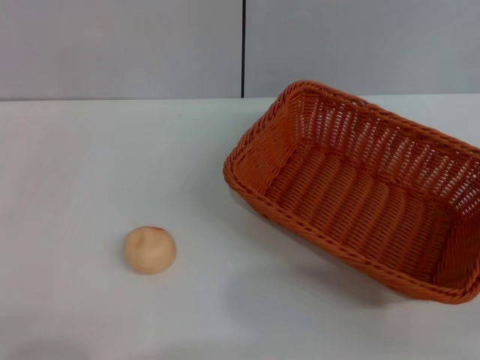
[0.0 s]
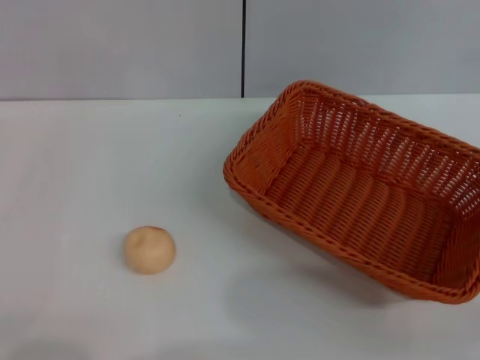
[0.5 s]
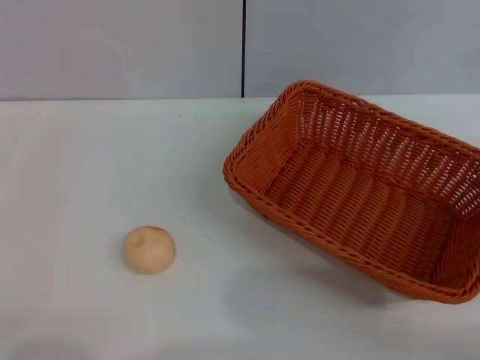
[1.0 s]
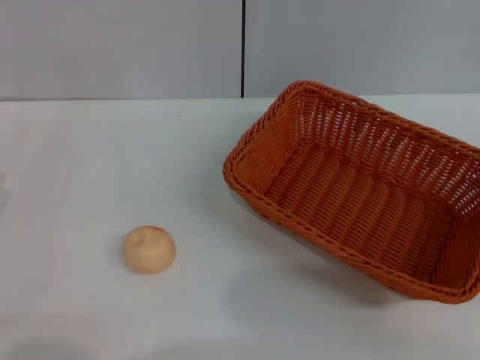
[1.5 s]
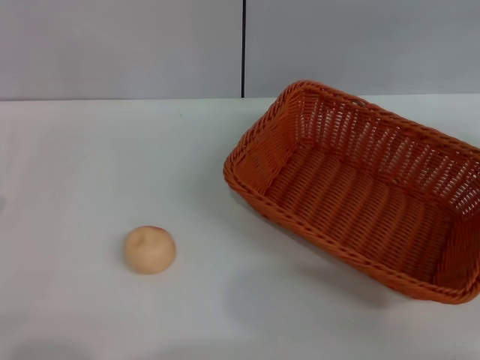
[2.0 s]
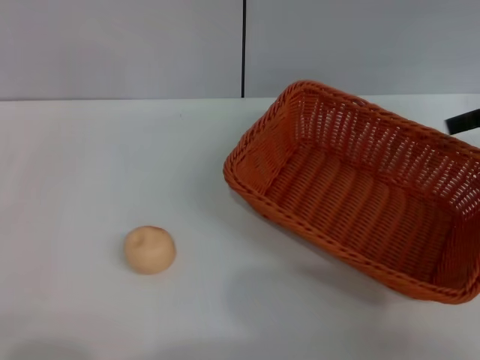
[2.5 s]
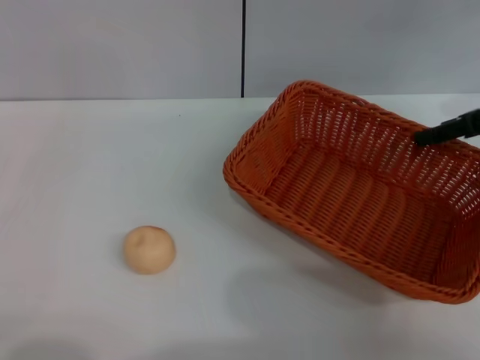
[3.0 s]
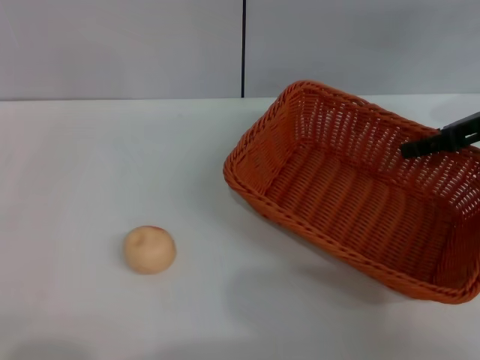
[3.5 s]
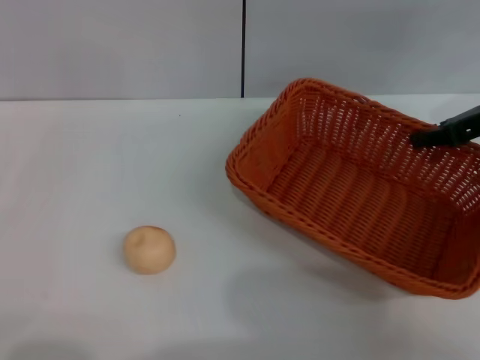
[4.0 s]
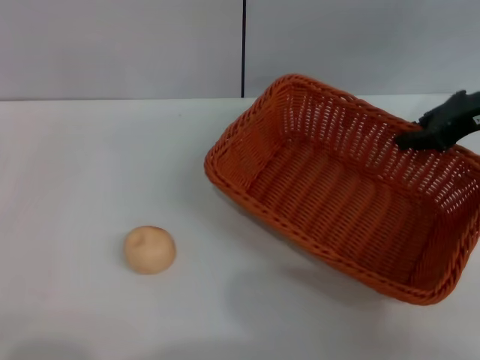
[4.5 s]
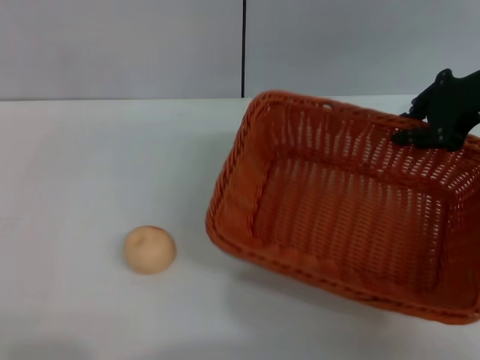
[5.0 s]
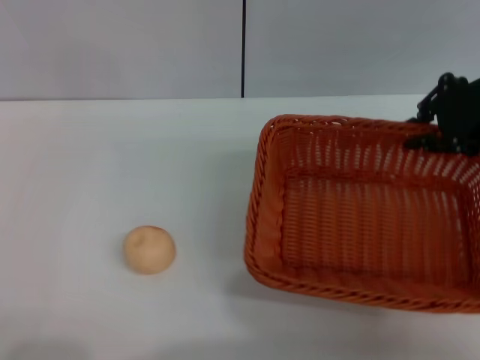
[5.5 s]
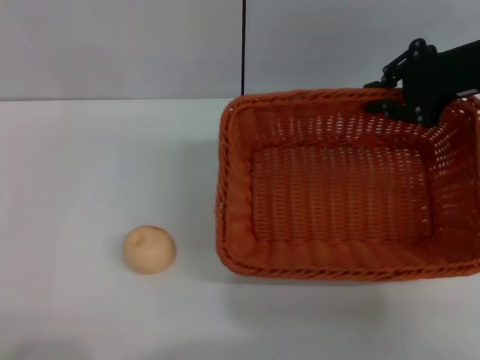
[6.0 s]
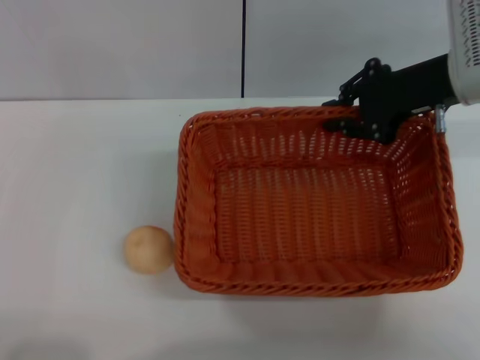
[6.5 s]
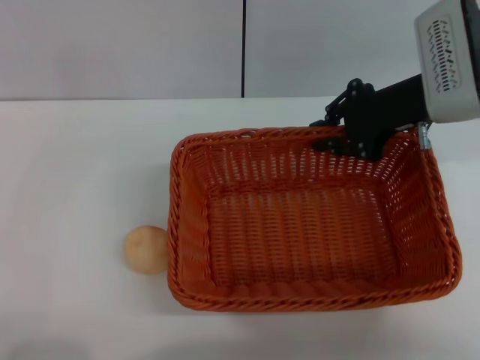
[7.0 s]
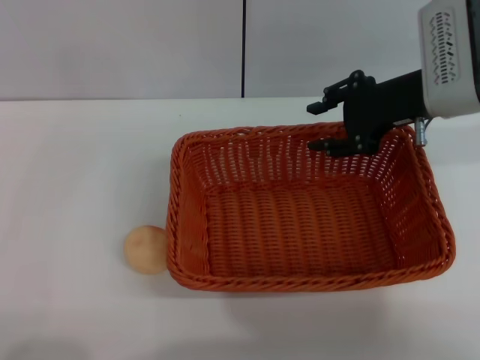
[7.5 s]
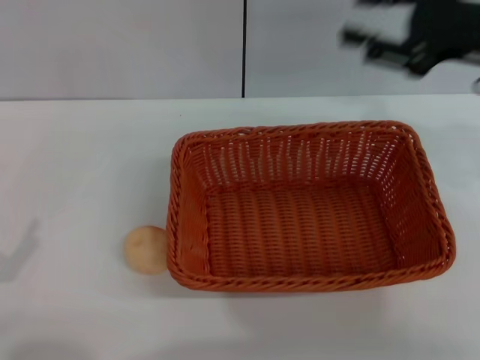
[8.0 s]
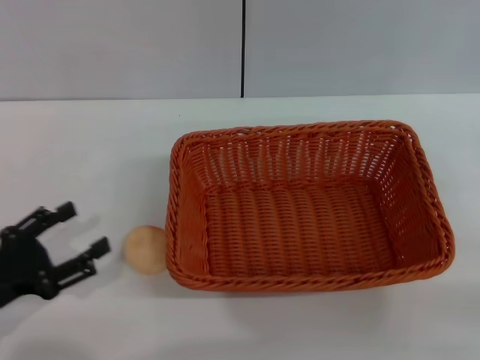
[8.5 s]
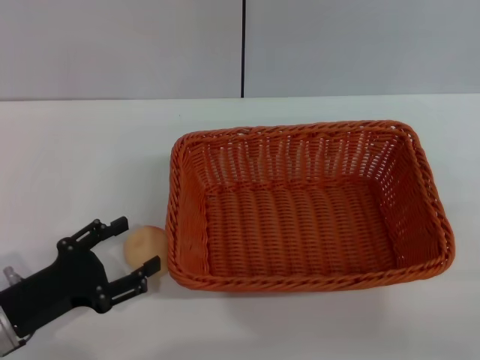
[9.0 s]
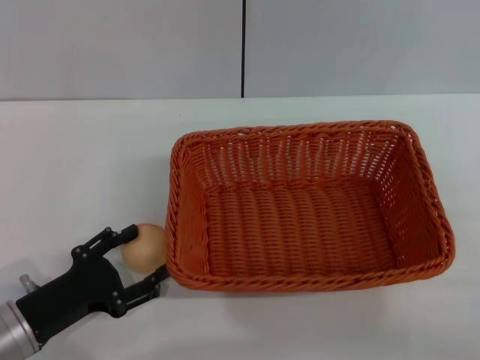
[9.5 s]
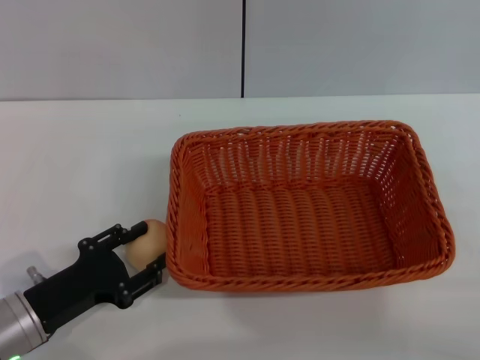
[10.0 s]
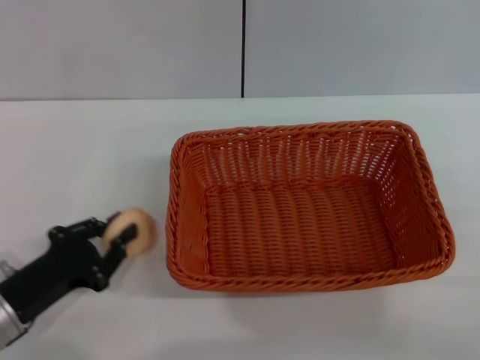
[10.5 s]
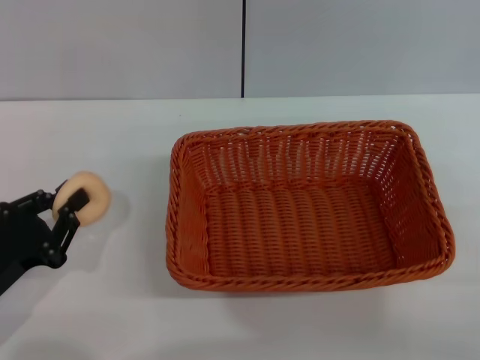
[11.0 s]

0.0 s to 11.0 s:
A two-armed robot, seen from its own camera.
Step, 0.0 to 7.5 s: Move the basket to the center of view with the right gripper.
2.0 to 3.5 s: The right gripper shifts about 15 cm to the left, downward and forward.
3.5 to 5.5 s: The right gripper moves some 5 cm, and closes up.
5.5 to 7.5 s: The right gripper goes roughly 5 cm to the left.
7.5 to 9.0 s: The right gripper moves backward and to the right, some 30 cm; the left gripper is displaced forward and to the right by some 10 cm.
9.0 to 11.0 s: The left gripper closes up.

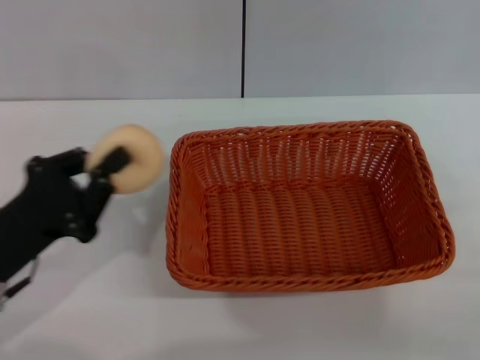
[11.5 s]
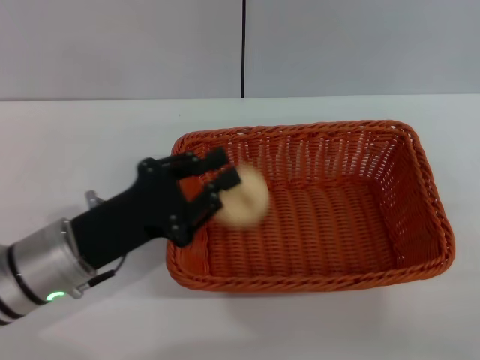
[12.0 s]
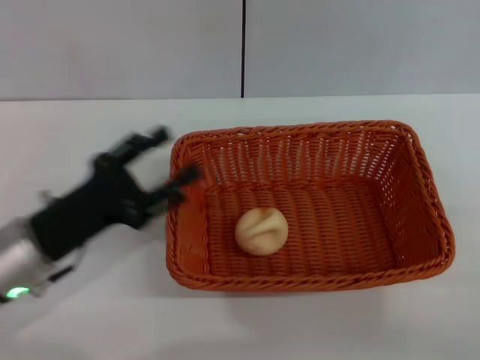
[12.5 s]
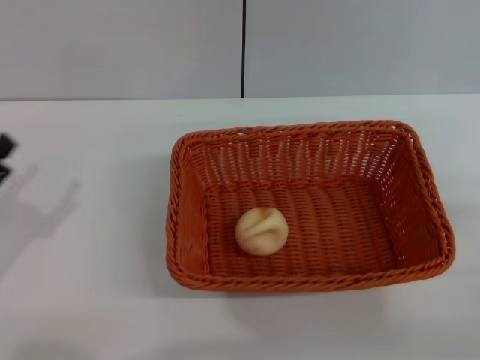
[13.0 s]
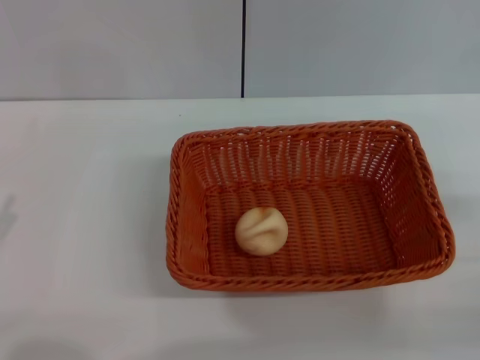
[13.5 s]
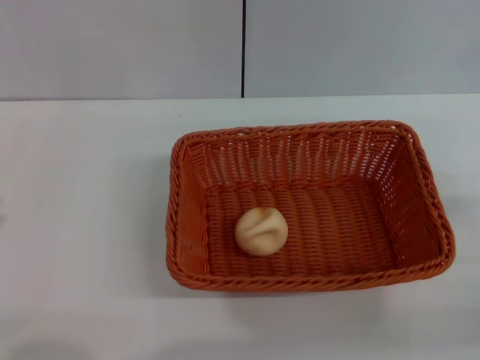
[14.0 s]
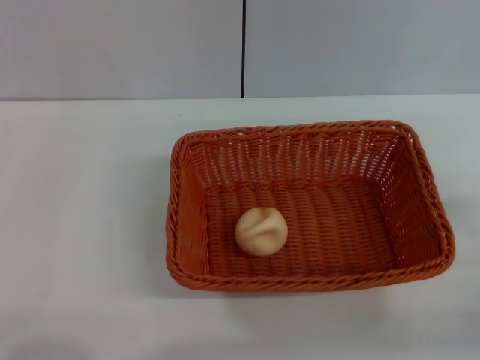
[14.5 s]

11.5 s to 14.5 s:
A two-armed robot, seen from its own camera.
Step, 11.5 to 12.5 s: Place the egg yolk pastry into the basket with the left gripper.
11.5 to 13.0 s: The left gripper moves to the left, about 5 cm, and opens its fingers.

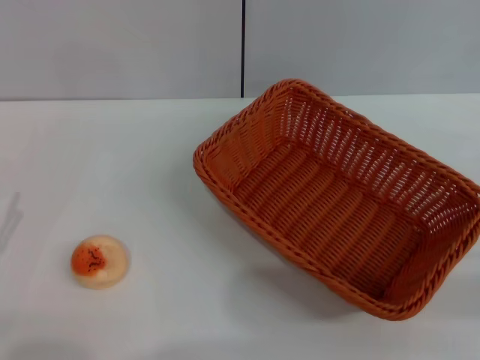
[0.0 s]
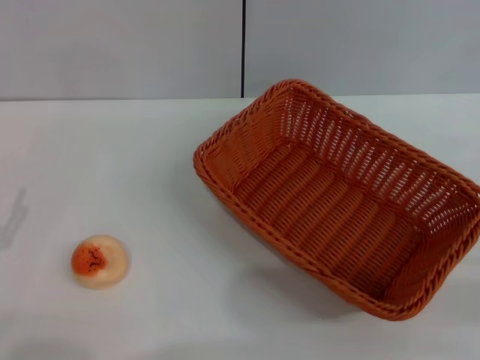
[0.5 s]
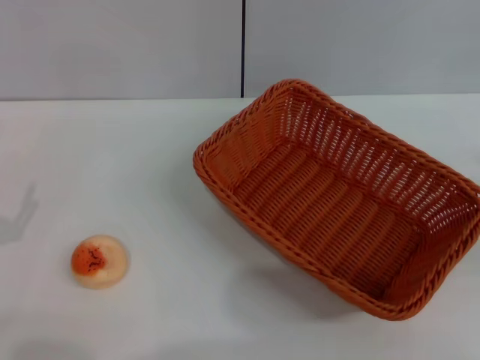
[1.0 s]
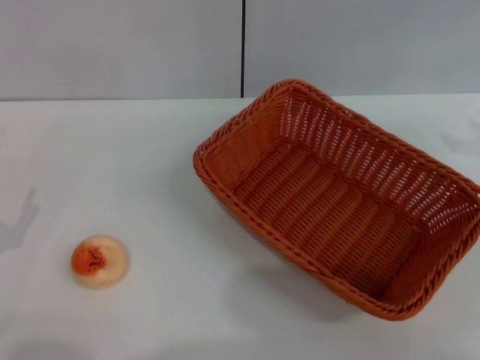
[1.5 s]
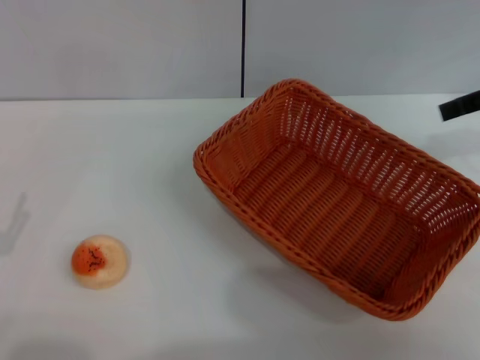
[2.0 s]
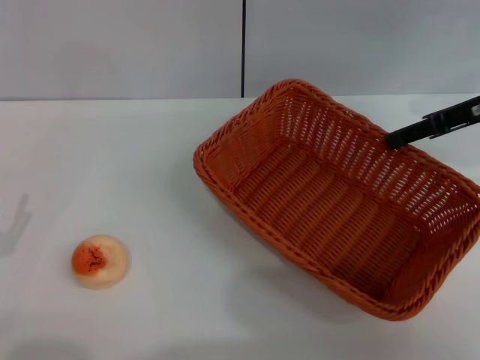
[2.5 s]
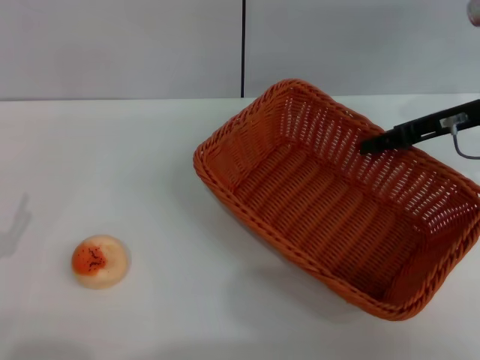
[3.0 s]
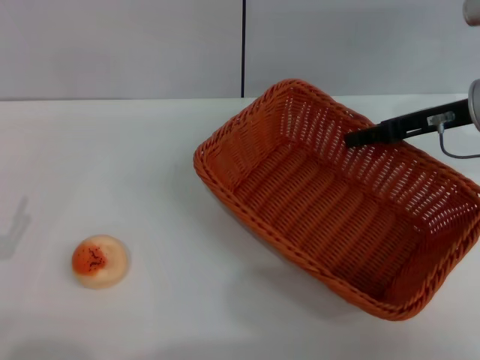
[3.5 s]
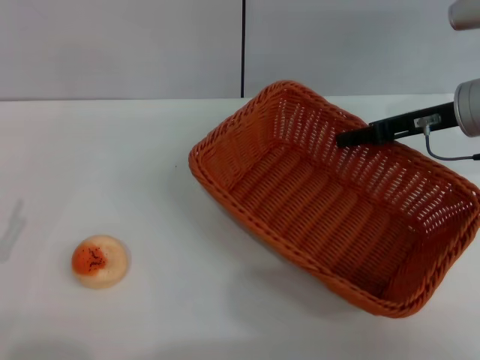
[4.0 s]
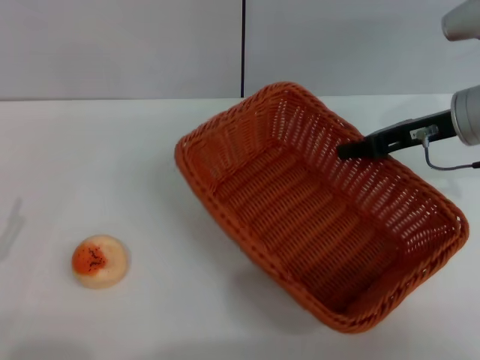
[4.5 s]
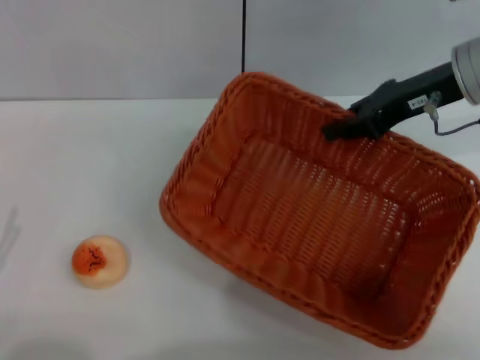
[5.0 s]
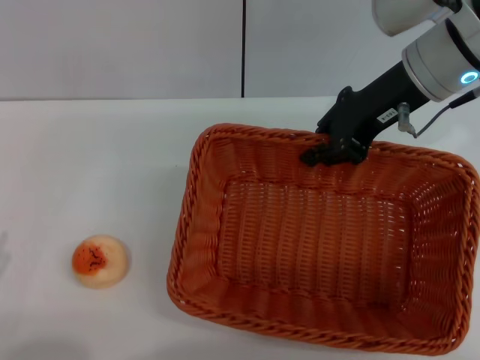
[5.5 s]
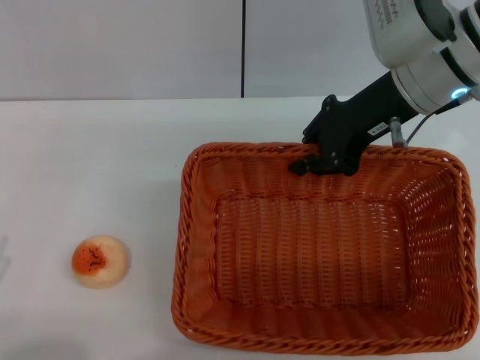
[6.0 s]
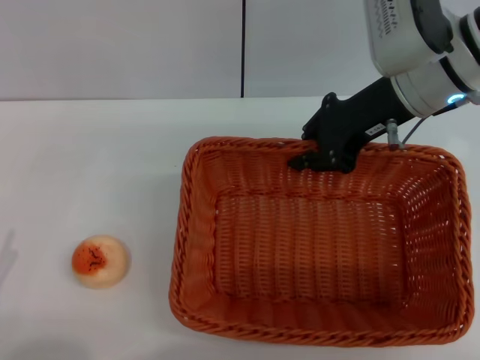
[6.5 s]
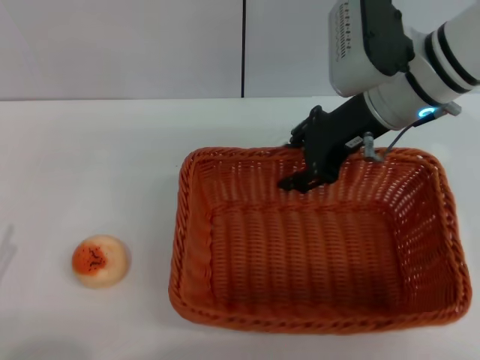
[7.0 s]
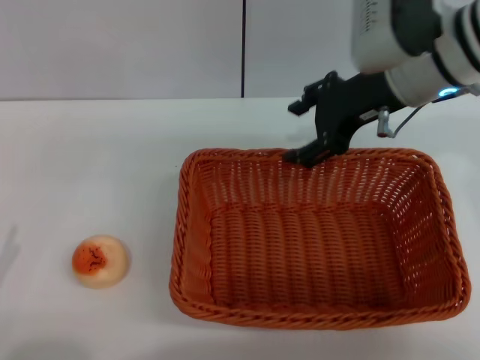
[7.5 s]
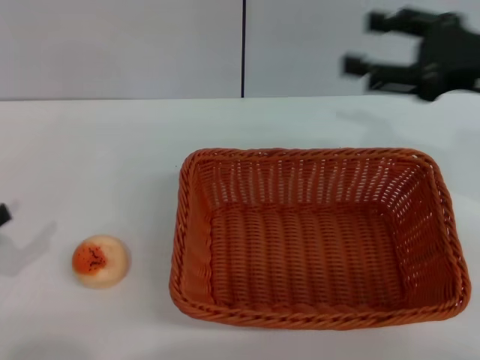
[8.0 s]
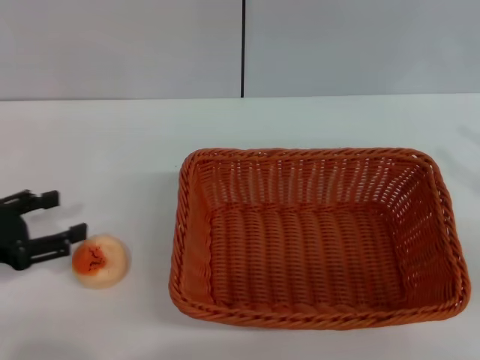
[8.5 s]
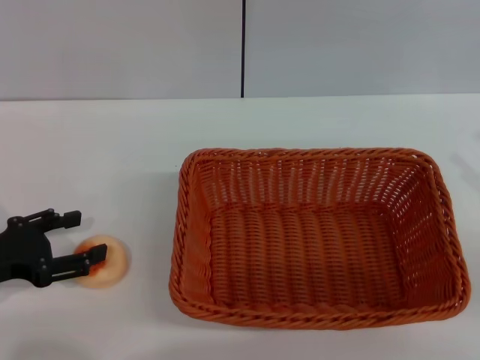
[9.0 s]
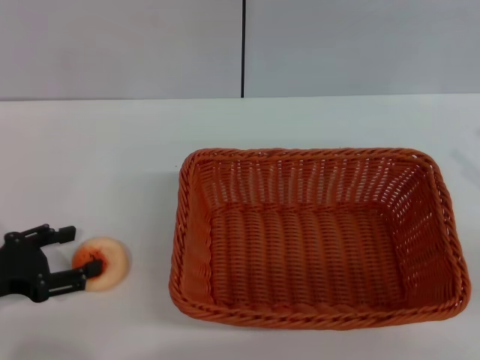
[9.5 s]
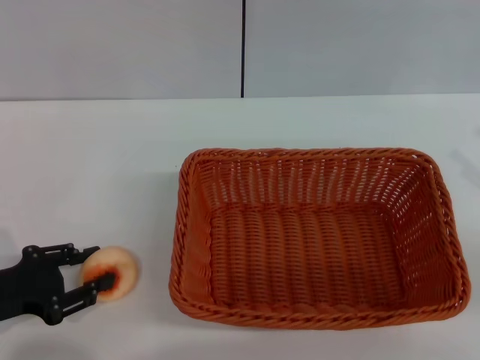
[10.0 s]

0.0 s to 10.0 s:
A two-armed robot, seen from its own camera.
Step, 0.0 to 7.0 s: Move the basket to the center of view with the right gripper.
0.0 to 2.0 s: The right gripper travels upward and forward by approximately 25 cm.
2.0 to 4.0 s: The right gripper goes some 15 cm downward and to the left.
4.0 to 6.0 s: The right gripper goes roughly 10 cm to the left and upward, and closes its fingers. The left gripper shifts roughly 5 cm backward.
6.0 to 8.0 s: The right gripper heads to the right and backward, covering approximately 15 cm, and opens its fingers. Meanwhile the left gripper goes some 10 cm forward.
8.0 to 10.0 s: The left gripper moves to the right, roughly 5 cm, while the right gripper heads to the right and backward, covering approximately 15 cm.

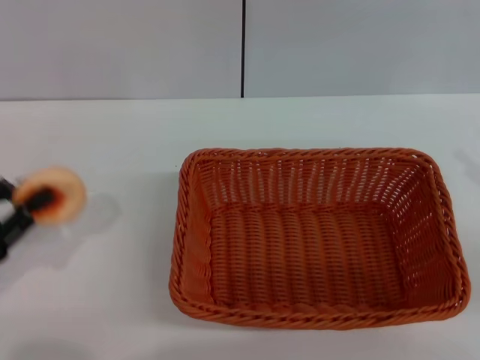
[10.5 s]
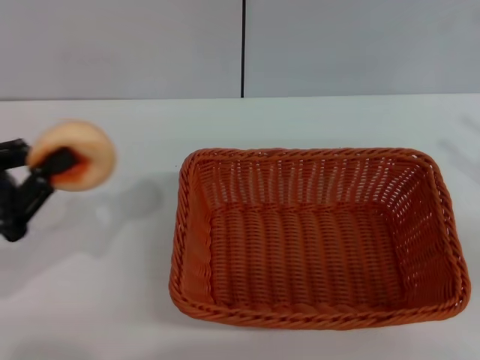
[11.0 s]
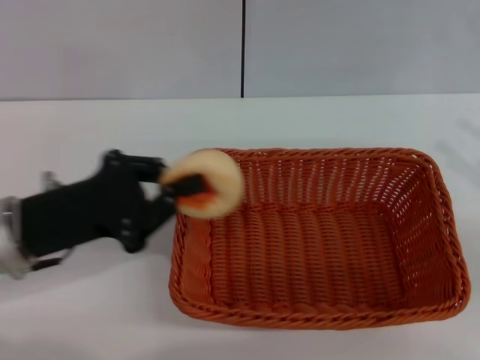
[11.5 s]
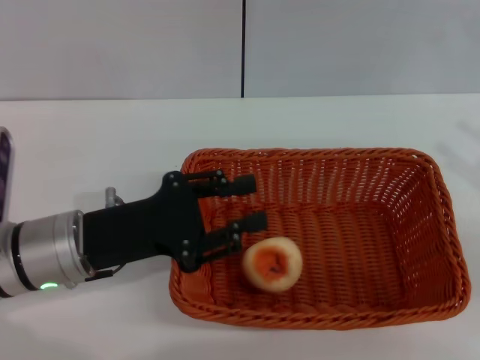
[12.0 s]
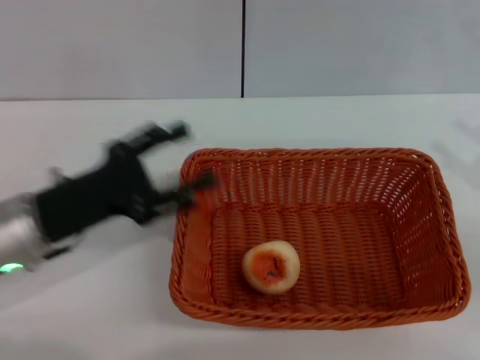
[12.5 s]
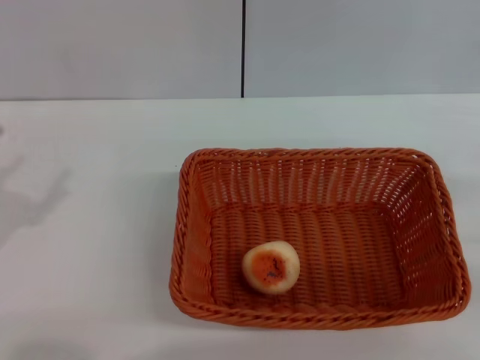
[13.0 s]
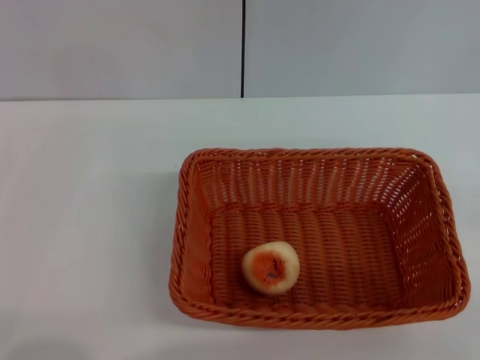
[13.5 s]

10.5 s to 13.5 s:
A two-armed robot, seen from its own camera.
Step, 10.5 to 12.0 s: Place the egg yolk pastry into the basket with the left gripper.
10.5 to 12.0 s: The left gripper is displaced to the right by about 15 cm.
12.0 to 13.5 s: The right gripper shifts approximately 10 cm downward and backward; the left gripper is displaced to the left and backward by some 20 cm, and opens up.
